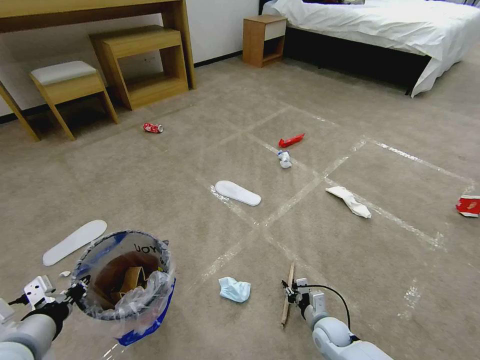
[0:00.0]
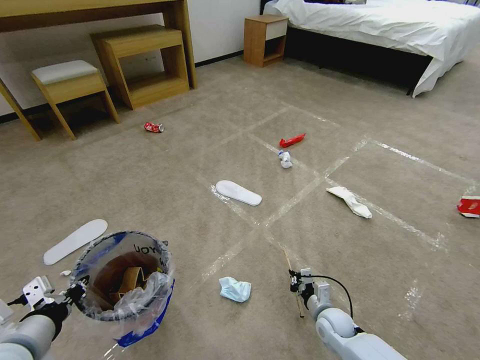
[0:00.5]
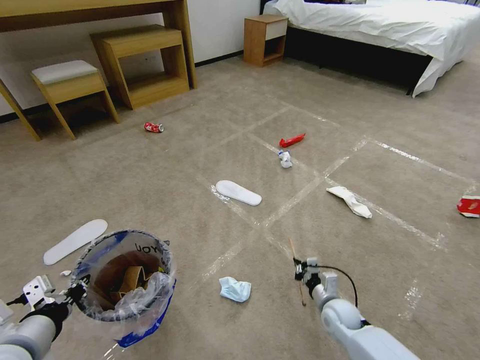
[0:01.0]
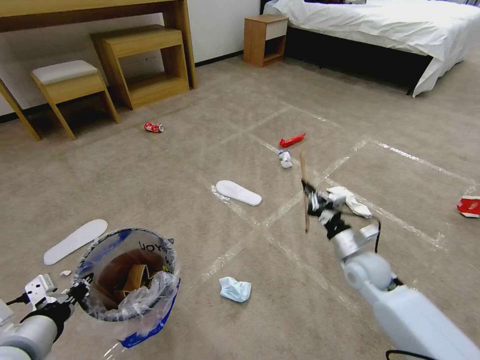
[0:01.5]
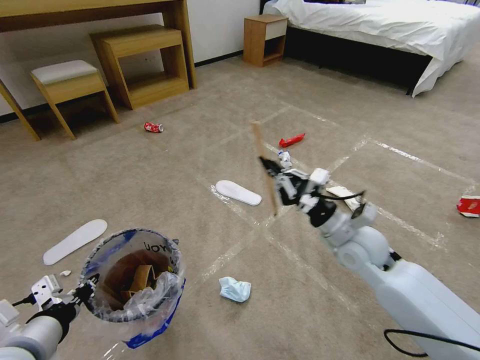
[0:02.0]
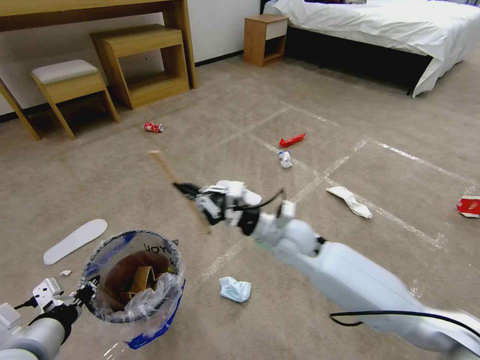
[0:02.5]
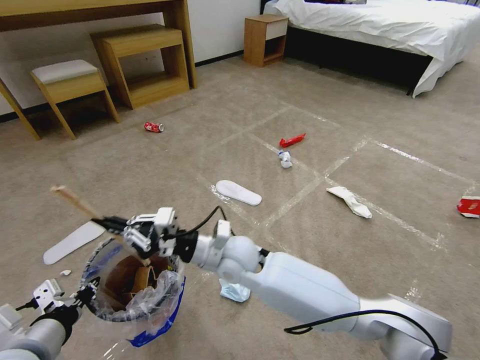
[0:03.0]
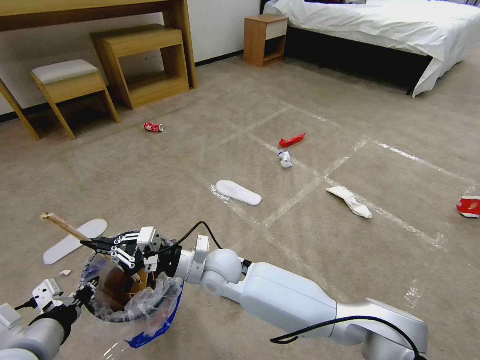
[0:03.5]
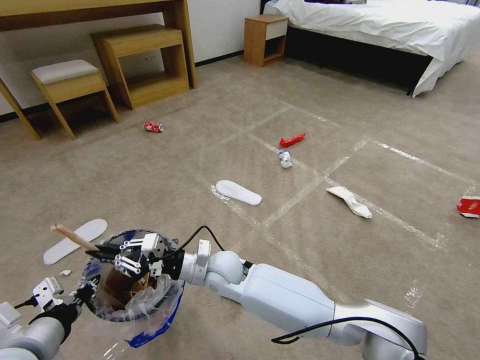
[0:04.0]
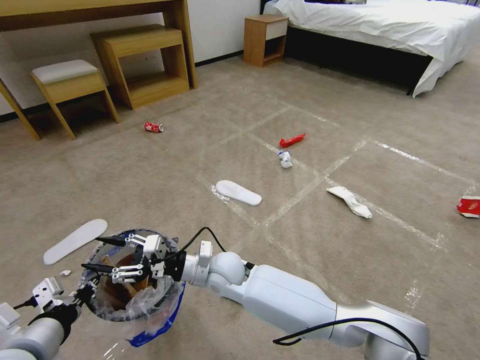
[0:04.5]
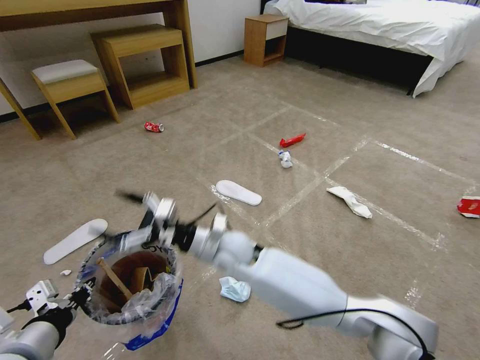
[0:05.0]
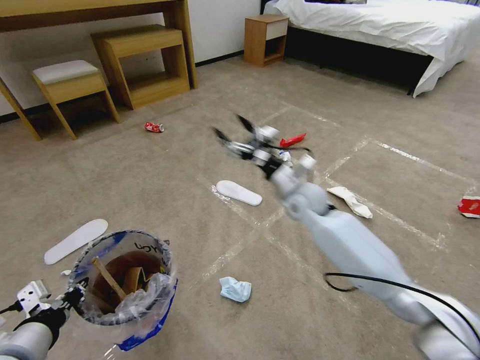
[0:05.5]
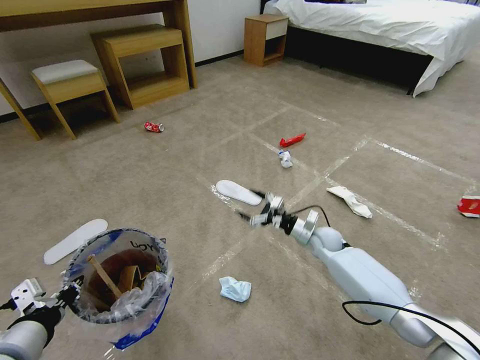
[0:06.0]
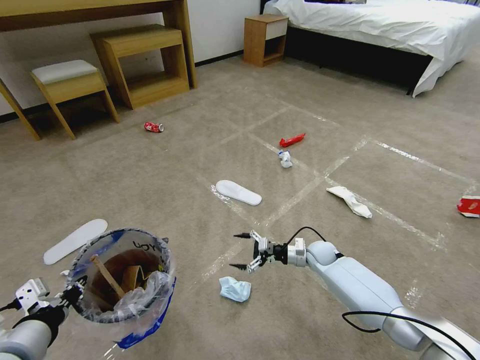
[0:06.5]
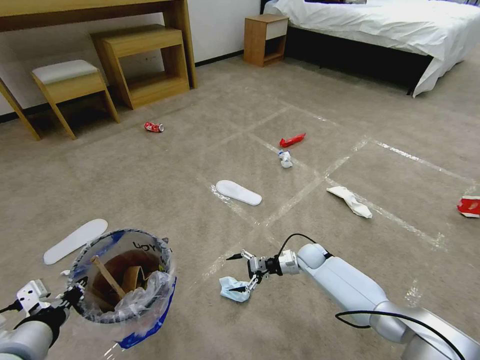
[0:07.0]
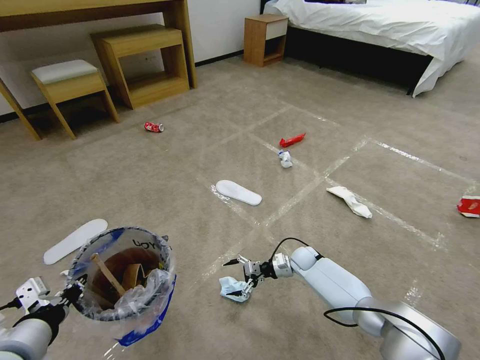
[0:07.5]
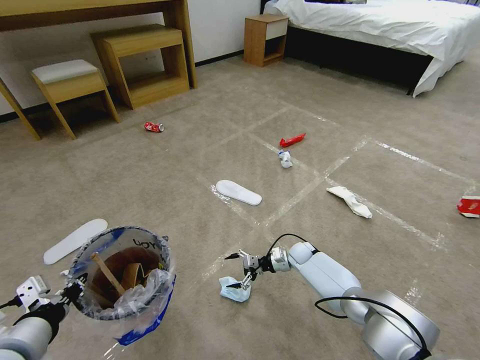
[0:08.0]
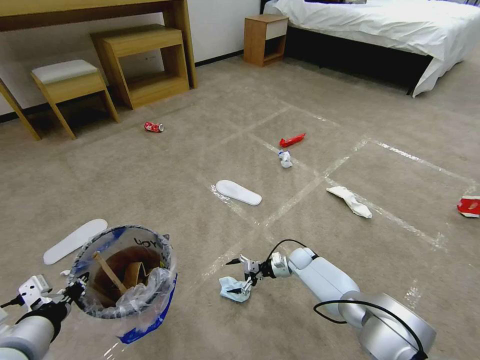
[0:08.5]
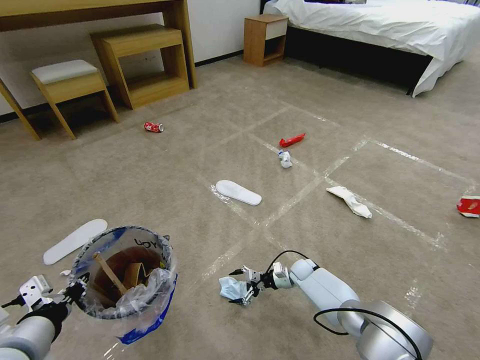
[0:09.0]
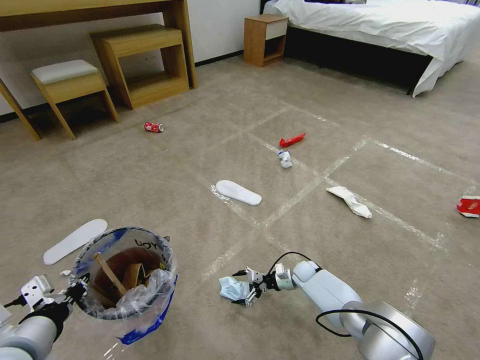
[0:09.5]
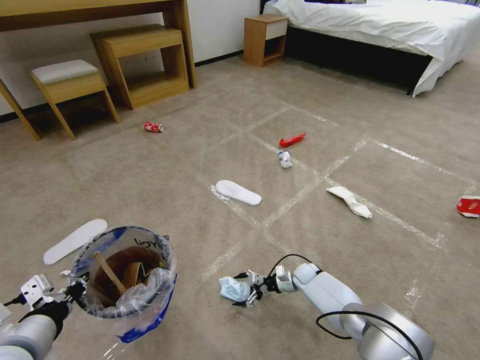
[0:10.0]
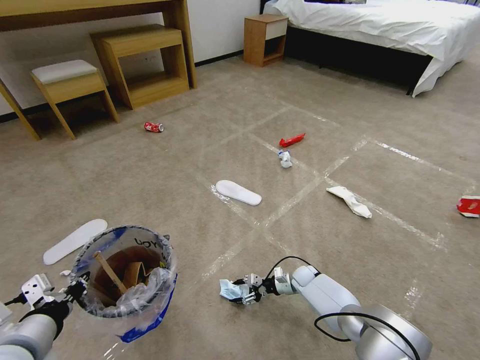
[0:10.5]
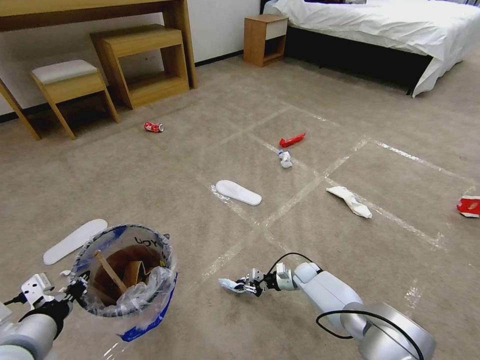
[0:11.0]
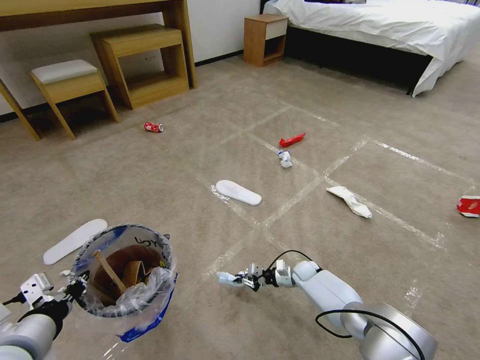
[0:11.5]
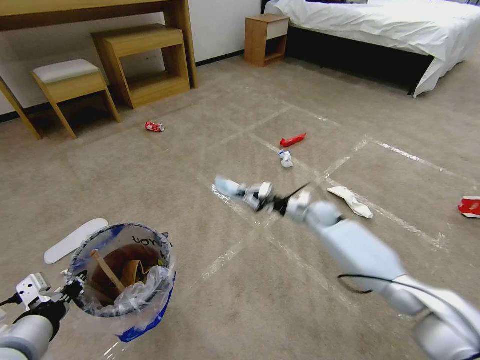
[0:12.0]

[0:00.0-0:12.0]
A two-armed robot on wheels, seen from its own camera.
Task of the whole recording: Pick up the trash bin and place the garbage on the floor into it.
0:00.0 to 0:02.0: The right gripper goes approximately 30 cm upward.
0:02.0 to 0:04.0: The right gripper moves to the left, about 30 cm.
0:04.0 to 0:06.0: The right gripper goes some 35 cm to the right and forward, and opens its fingers.
0:06.0 to 0:08.0: The right gripper is displaced downward by roughly 10 cm.
0:08.0 to 0:10.0: The right gripper goes roughly 5 cm downward.
0:10.0 to 0:12.0: The right gripper heads upward, covering roughly 25 cm, and closes.

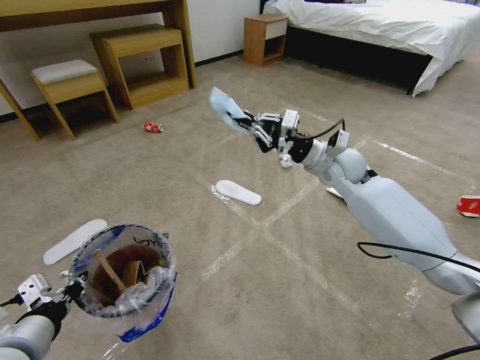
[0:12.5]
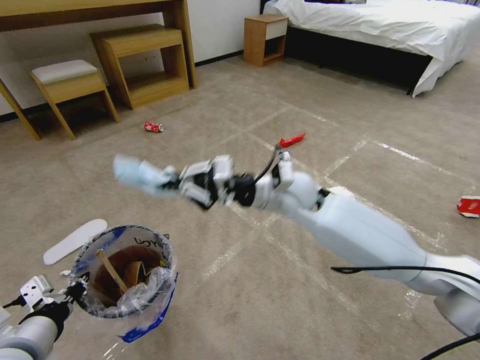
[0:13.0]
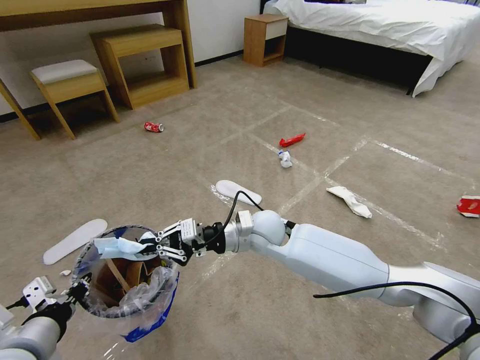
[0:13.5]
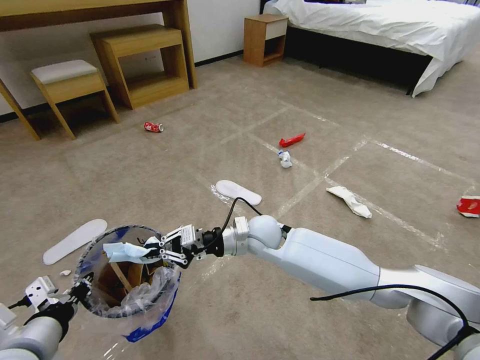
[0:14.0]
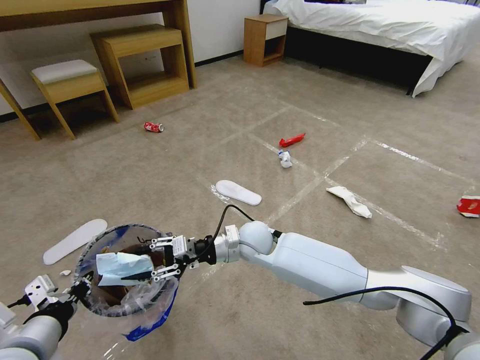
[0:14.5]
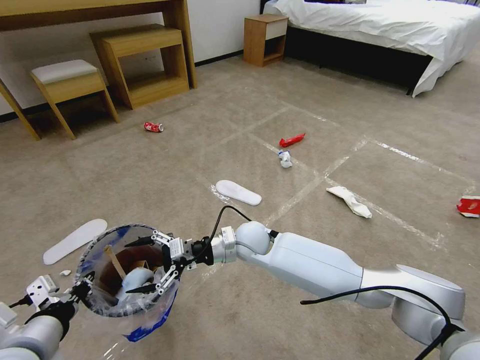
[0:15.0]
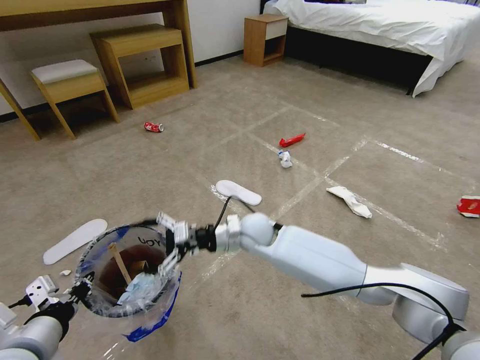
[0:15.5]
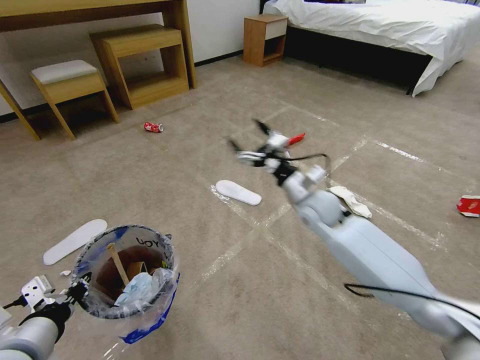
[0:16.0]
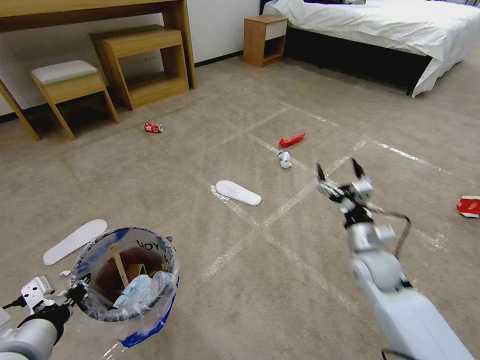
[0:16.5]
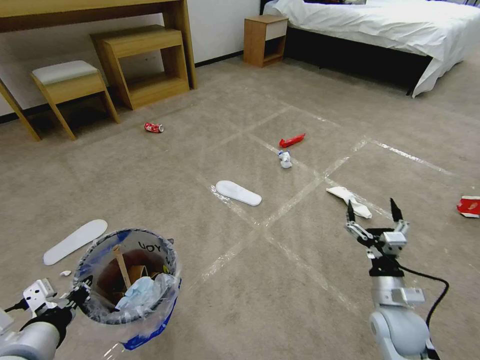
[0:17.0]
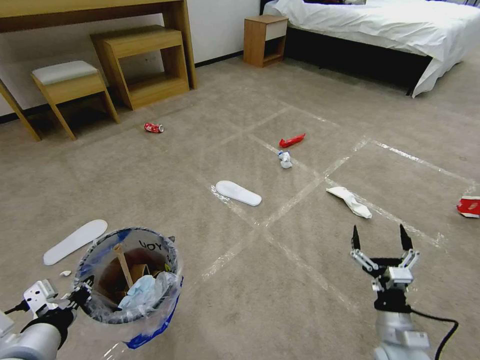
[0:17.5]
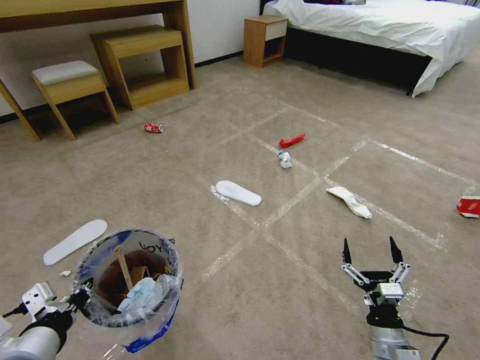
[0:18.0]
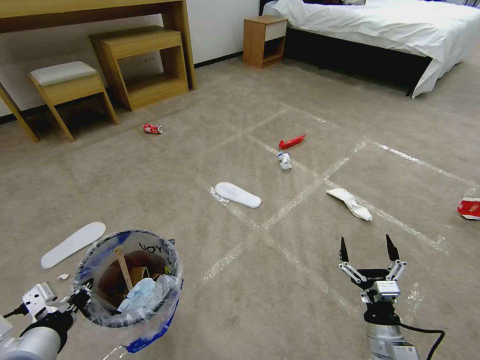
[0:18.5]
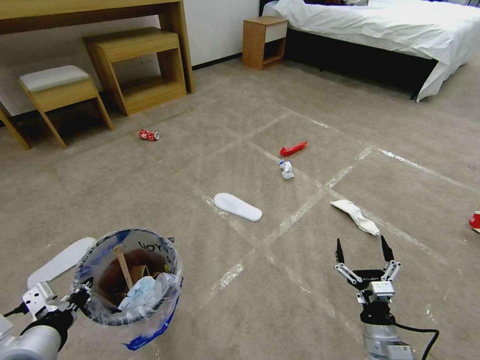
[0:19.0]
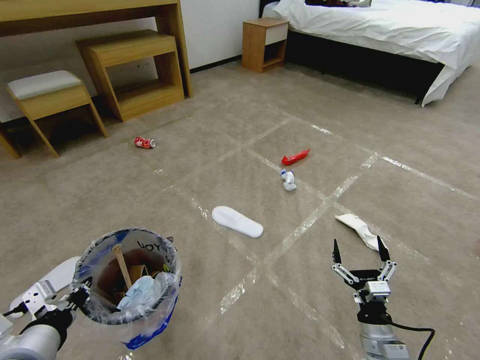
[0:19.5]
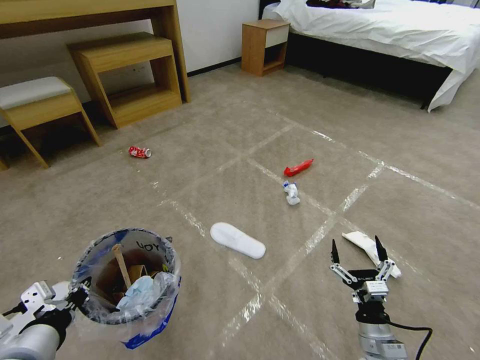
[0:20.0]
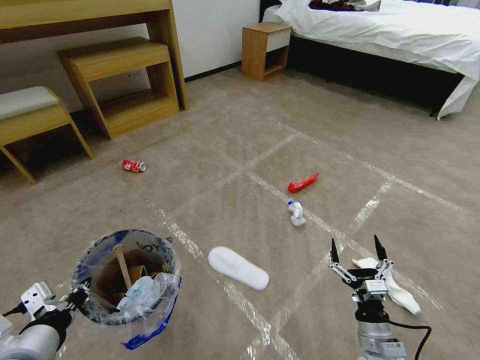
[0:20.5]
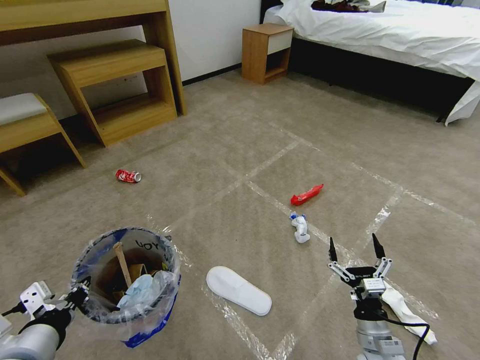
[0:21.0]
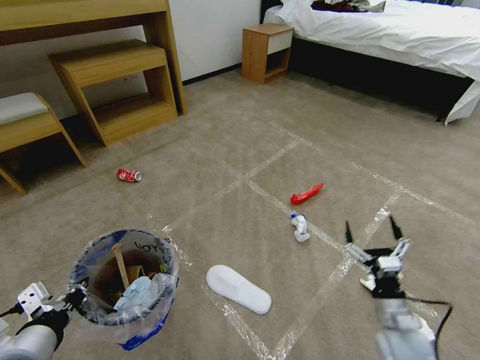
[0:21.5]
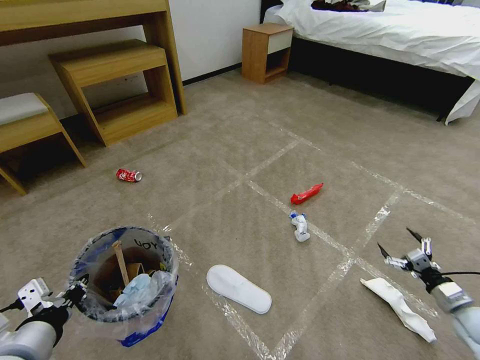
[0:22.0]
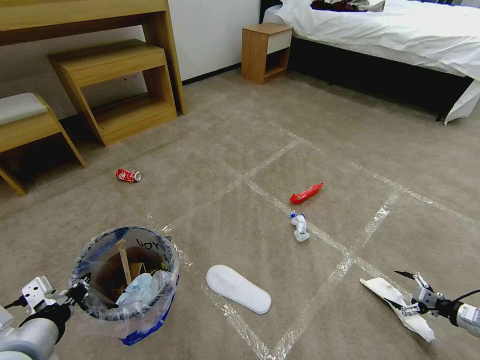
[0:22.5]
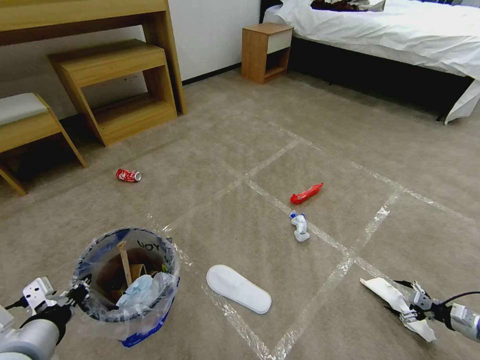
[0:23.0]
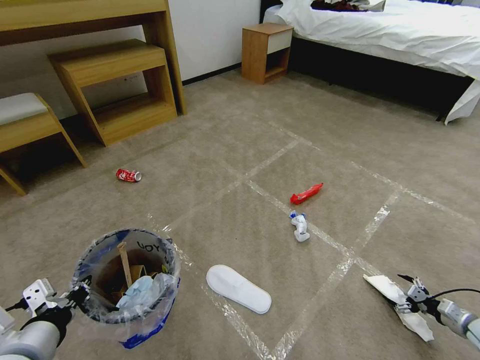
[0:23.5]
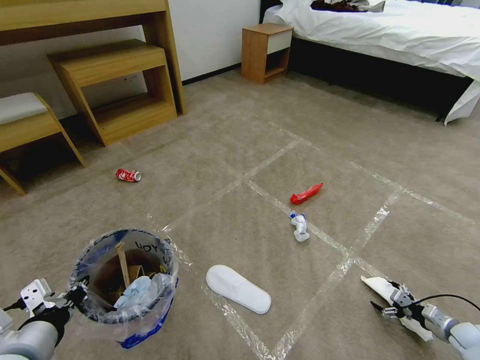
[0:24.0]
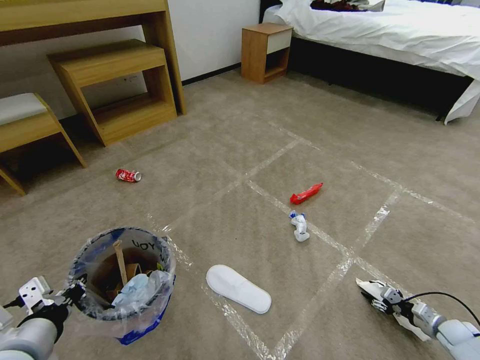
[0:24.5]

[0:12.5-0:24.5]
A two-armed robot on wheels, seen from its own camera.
Task of the whole recording: Pick up the trash bin and place the garbage on the floor into it.
0:12.5 to 0:14.5: The right gripper shifts approximately 25 cm to the left, downward and backward, and opens.
0:14.5 to 0:16.5: The right gripper moves to the right, about 30 cm, and opens up.
0:16.5 to 0:18.5: The right gripper is displaced backward and downward by about 20 cm.
0:20.5 to 0:22.5: The right gripper shifts approximately 35 cm to the right.
0:22.5 to 0:24.5: The right gripper shifts roughly 10 cm downward and to the left, and closes up.

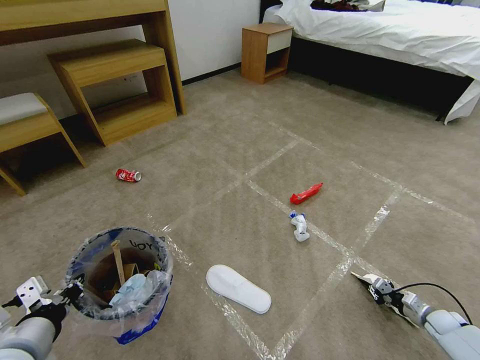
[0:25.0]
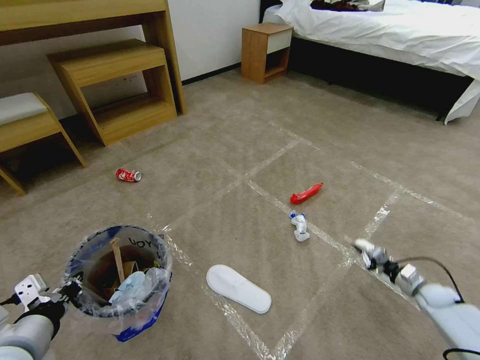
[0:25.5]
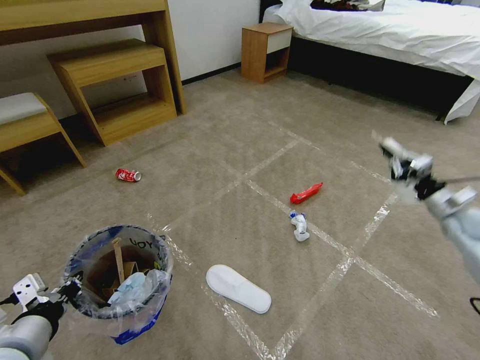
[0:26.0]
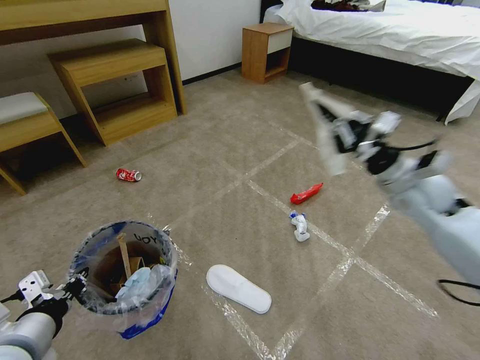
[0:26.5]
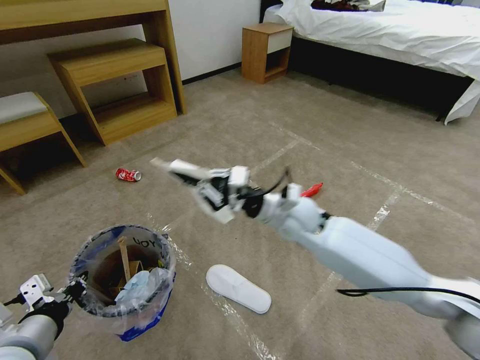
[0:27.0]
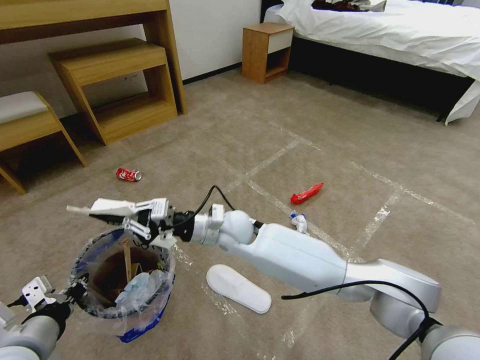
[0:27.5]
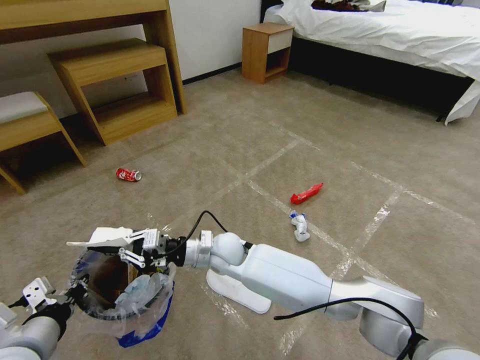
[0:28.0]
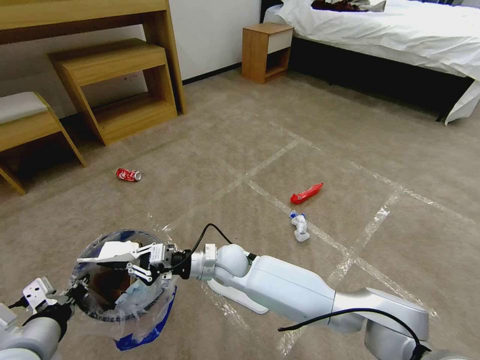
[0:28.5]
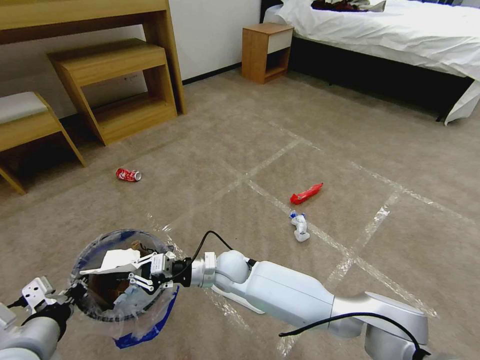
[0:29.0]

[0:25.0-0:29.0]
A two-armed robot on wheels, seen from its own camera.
Task of the whole recording: Pick up the trash bin and place the garbage on the floor into it.
0:25.0 to 0:27.0: The right gripper goes approximately 60 cm to the left and upward.
0:27.0 to 0:29.0: The right gripper goes about 20 cm to the left and downward.
